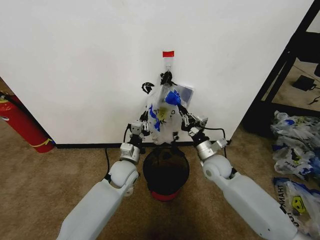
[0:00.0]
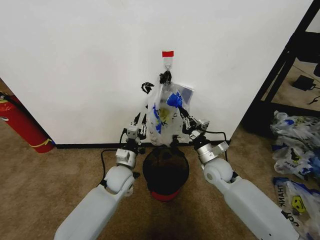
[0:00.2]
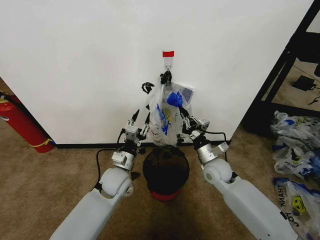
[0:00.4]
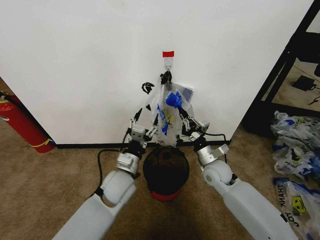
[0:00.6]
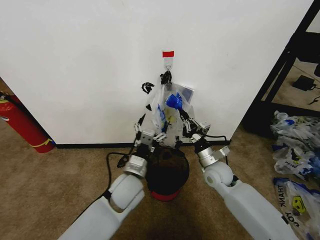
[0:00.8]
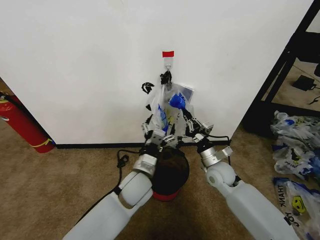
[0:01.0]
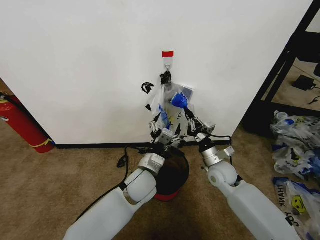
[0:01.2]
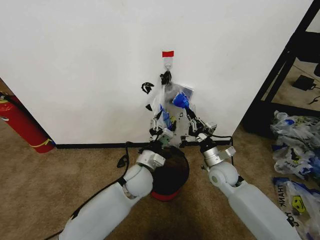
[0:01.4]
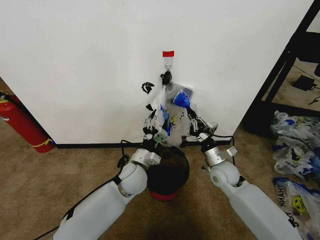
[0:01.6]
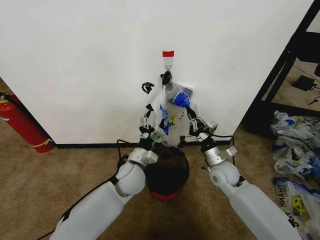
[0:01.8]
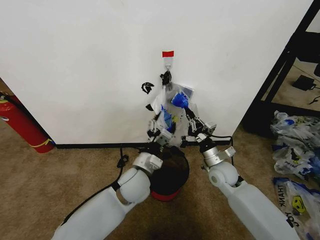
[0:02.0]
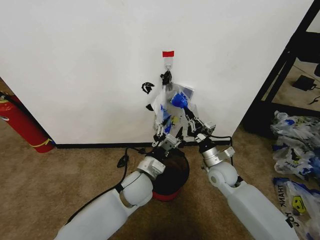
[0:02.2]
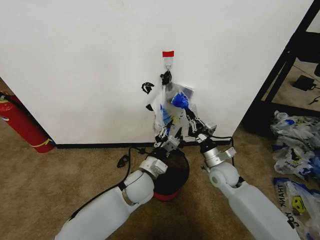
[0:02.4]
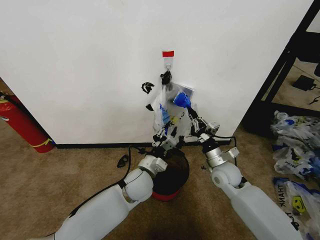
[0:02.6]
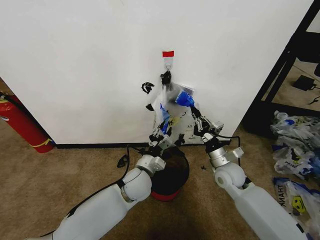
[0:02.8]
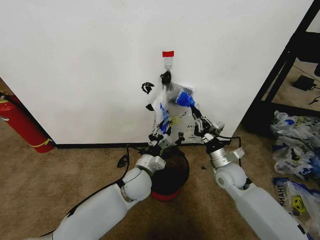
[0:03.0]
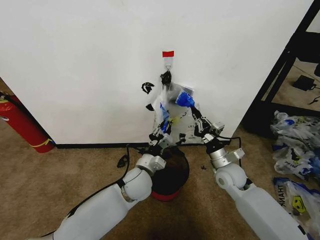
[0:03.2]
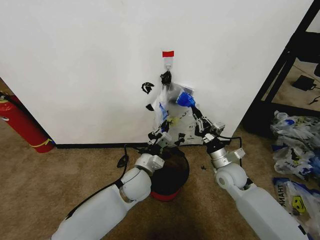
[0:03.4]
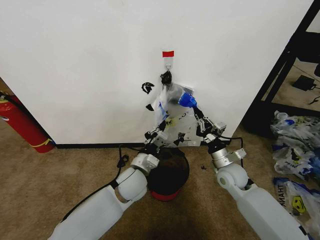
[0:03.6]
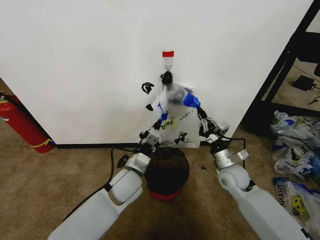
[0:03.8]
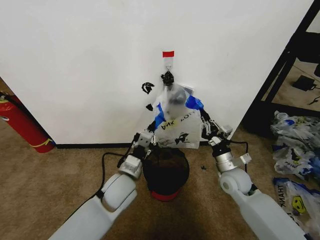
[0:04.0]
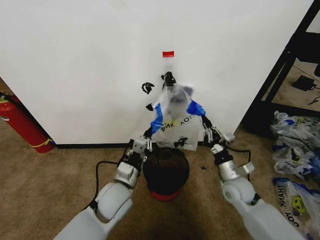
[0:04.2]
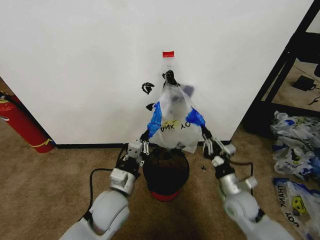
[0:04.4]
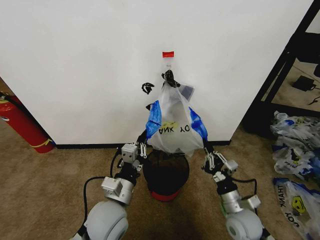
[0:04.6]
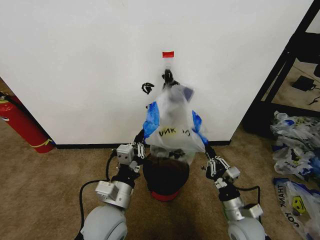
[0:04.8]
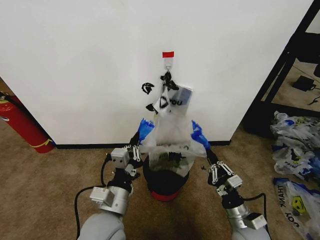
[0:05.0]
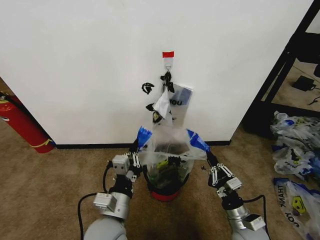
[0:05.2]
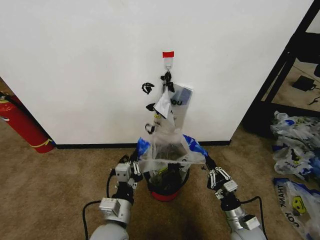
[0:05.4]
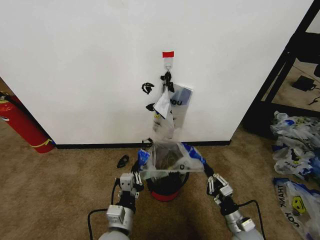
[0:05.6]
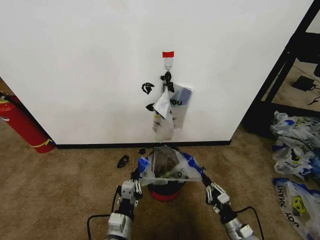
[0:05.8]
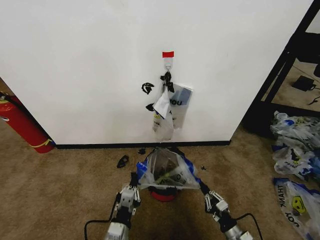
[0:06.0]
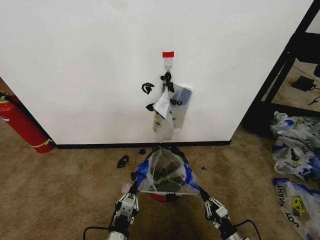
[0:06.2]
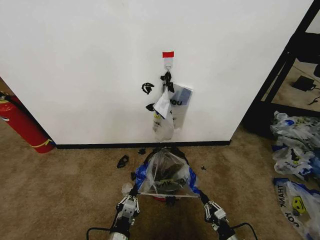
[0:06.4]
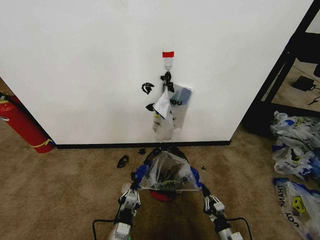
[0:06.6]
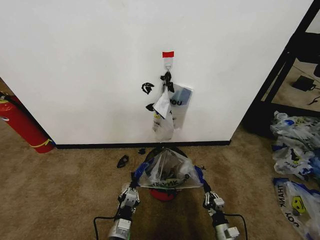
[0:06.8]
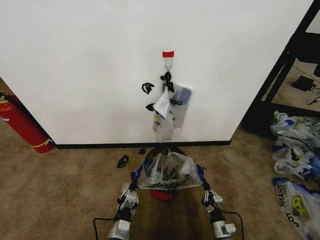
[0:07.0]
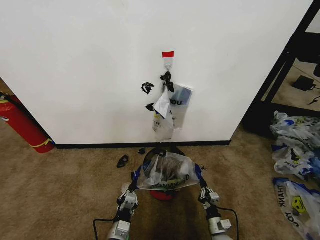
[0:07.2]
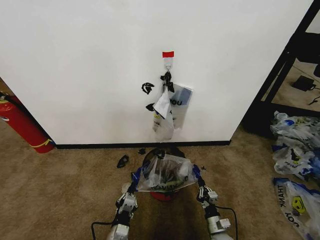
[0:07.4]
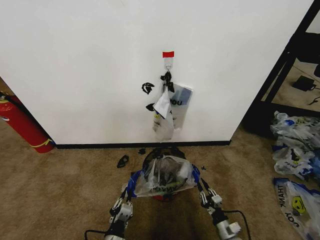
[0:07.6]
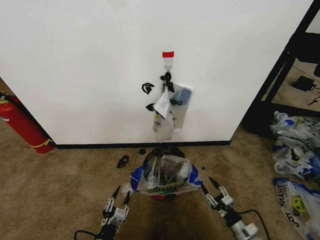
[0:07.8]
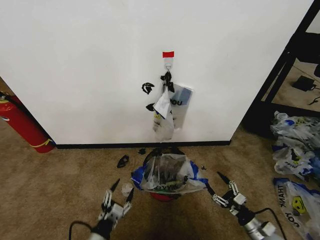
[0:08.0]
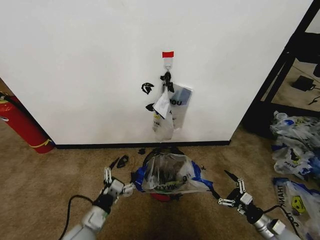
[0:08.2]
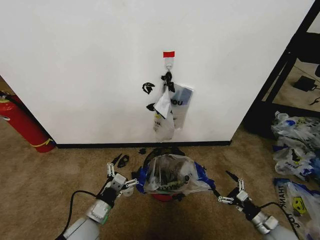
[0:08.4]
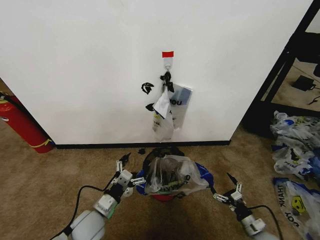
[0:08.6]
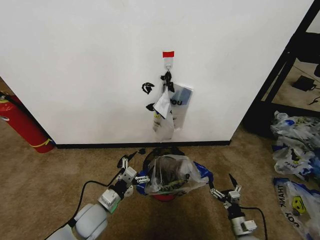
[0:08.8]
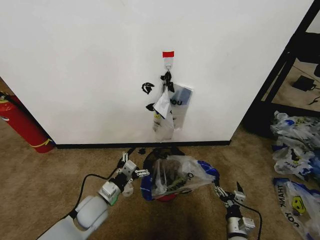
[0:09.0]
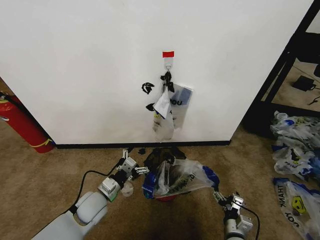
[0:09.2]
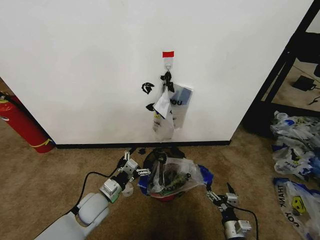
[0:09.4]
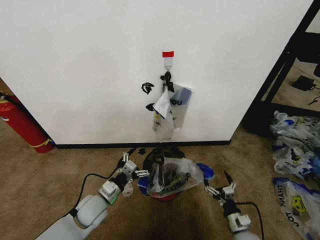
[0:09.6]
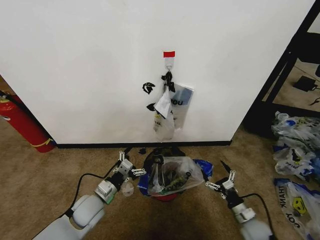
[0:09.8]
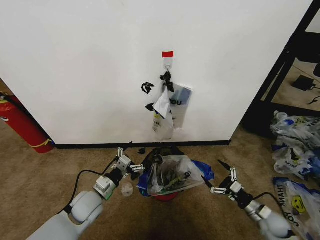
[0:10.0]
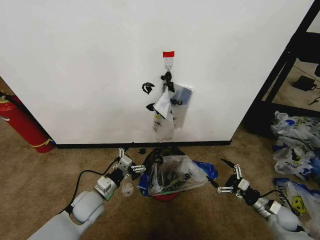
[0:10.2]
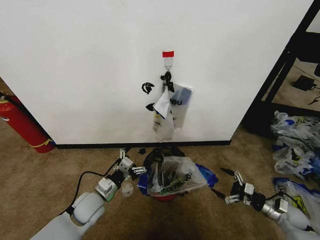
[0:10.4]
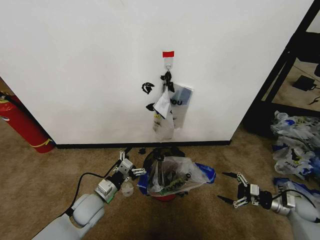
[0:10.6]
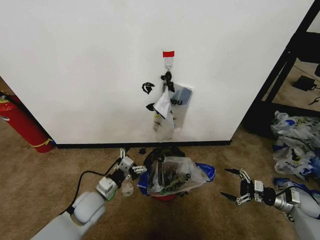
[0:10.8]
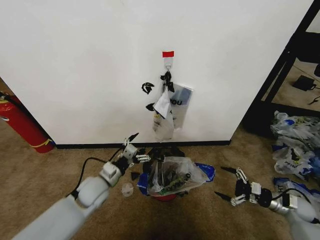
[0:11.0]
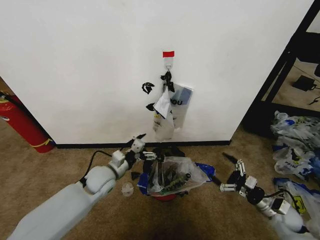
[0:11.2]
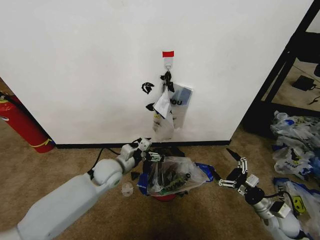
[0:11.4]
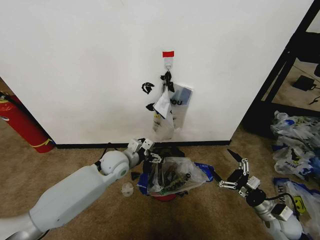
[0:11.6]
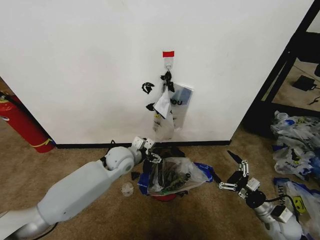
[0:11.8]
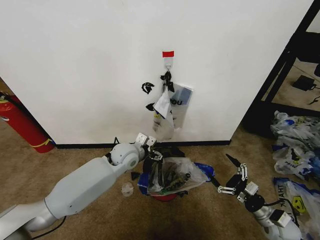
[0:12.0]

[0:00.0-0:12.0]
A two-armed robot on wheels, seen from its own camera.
Task of the whole recording: Pick up the garbage bag from the wall and place it over the trash bin.
0:00.0 to 0:01.6: The left gripper opens.
0:01.6 to 0:03.0: The grippers make only small movements.
0:03.0 to 0:04.4: The left gripper travels backward and to the left by about 10 cm, and closes its fingers. The right gripper moves backward, some 10 cm.
0:04.4 to 0:06.0: The left gripper is displaced backward and downward by some 15 cm, while the right gripper moves downward and backward, approximately 20 cm.
0:06.0 to 0:07.6: The grippers both shift downward by about 5 cm.
0:07.6 to 0:09.0: The left gripper shifts some 15 cm forward and upward, and opens. The right gripper heads upward, covering roughly 5 cm, reaches approximately 15 cm to the right, then returns, and opens its fingers.
0:09.0 to 0:10.4: The right gripper heads to the right and forward, covering roughly 20 cm.
0:10.4 to 0:12.0: The left gripper heads forward, to the right and upward, covering some 20 cm; the right gripper shifts about 10 cm to the left.

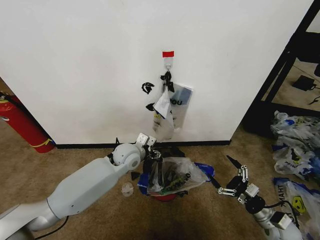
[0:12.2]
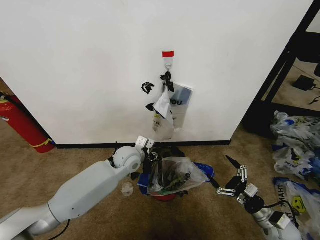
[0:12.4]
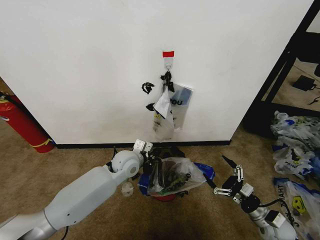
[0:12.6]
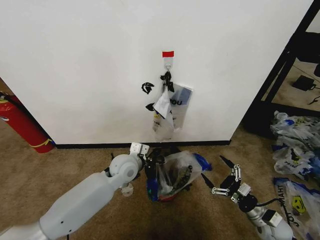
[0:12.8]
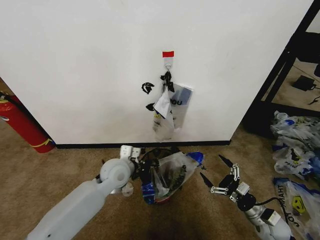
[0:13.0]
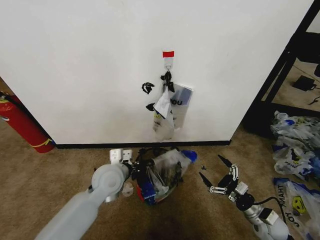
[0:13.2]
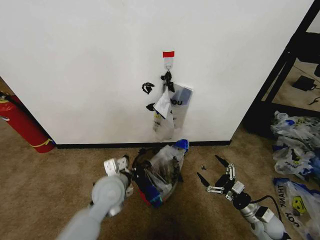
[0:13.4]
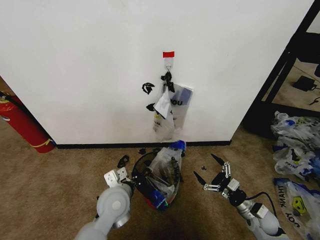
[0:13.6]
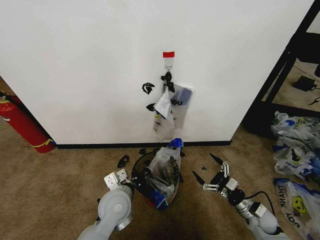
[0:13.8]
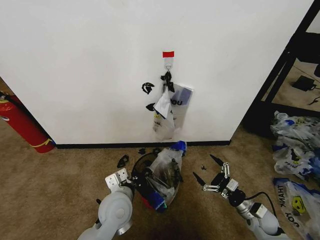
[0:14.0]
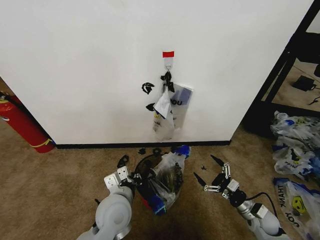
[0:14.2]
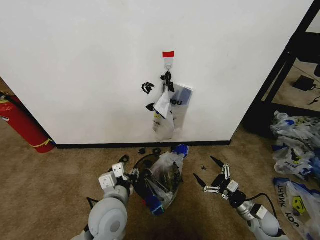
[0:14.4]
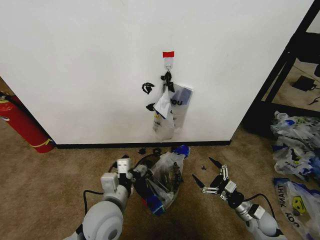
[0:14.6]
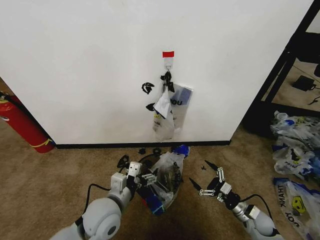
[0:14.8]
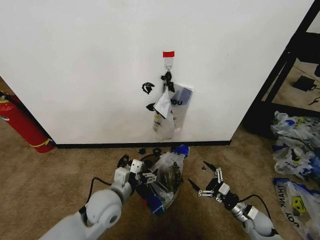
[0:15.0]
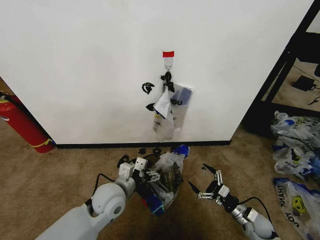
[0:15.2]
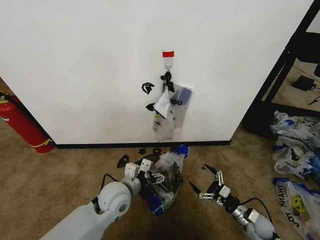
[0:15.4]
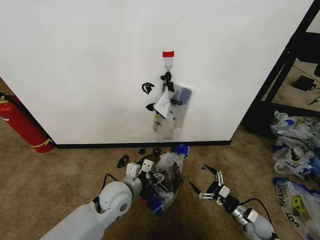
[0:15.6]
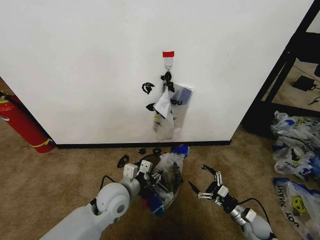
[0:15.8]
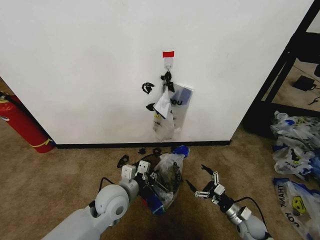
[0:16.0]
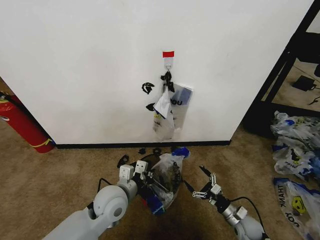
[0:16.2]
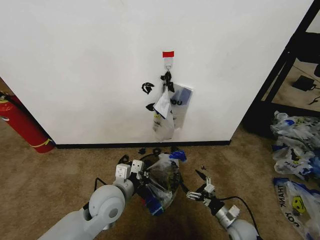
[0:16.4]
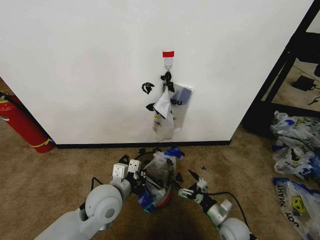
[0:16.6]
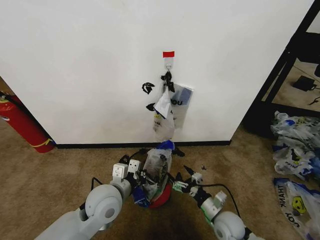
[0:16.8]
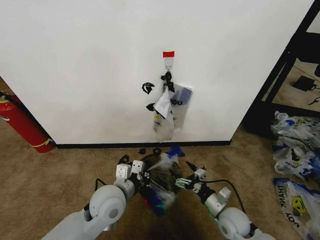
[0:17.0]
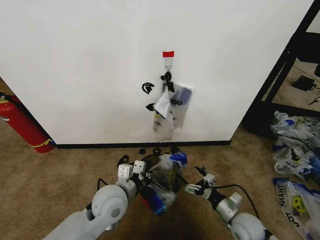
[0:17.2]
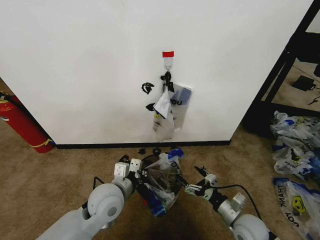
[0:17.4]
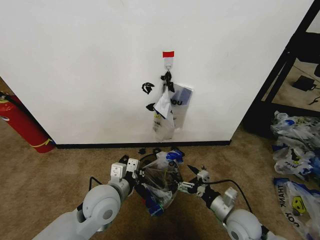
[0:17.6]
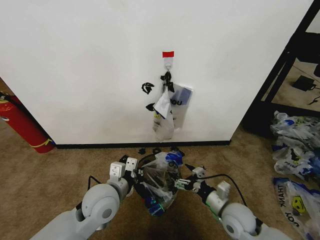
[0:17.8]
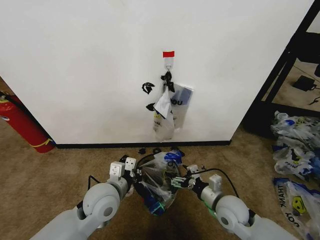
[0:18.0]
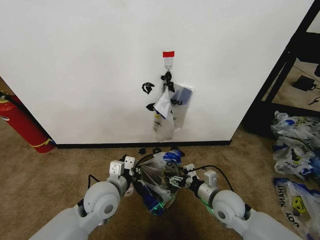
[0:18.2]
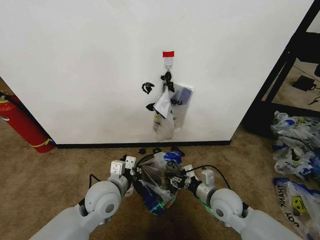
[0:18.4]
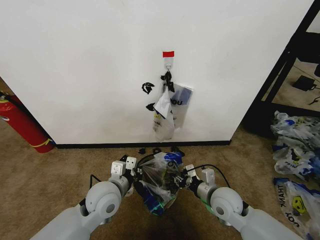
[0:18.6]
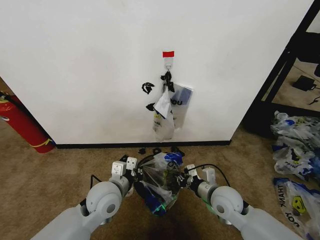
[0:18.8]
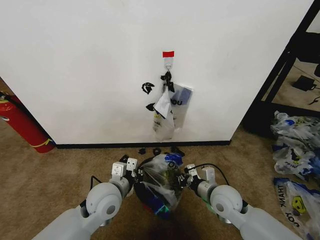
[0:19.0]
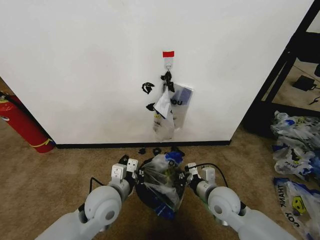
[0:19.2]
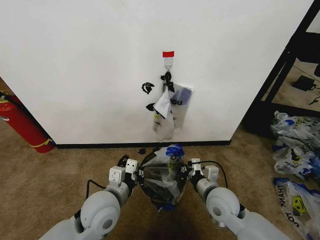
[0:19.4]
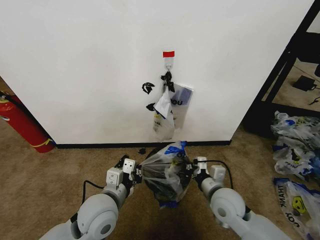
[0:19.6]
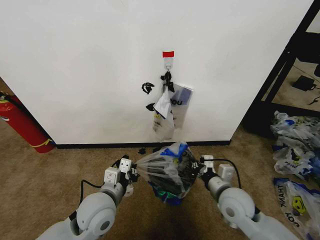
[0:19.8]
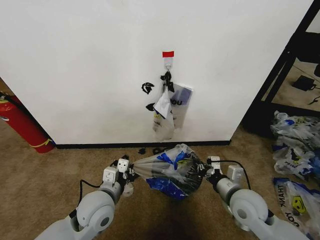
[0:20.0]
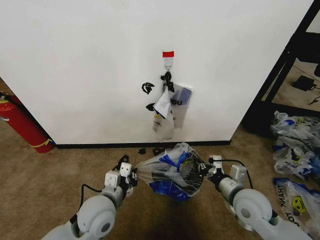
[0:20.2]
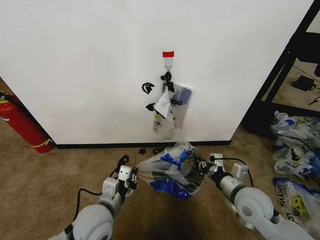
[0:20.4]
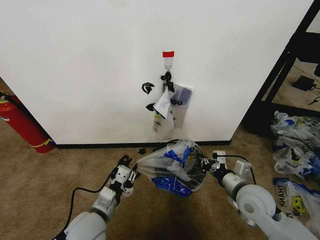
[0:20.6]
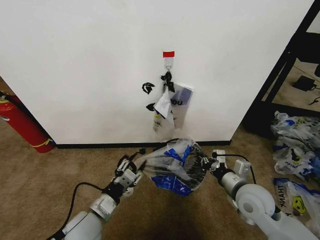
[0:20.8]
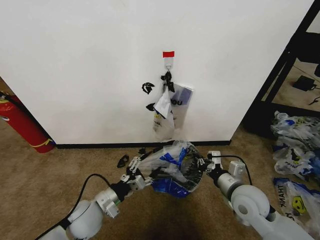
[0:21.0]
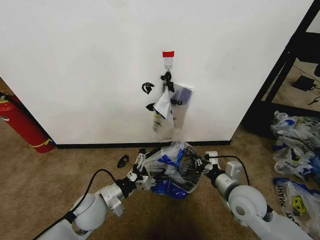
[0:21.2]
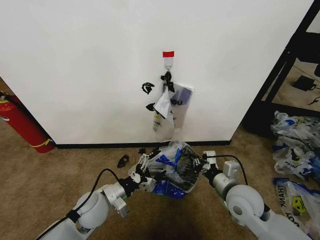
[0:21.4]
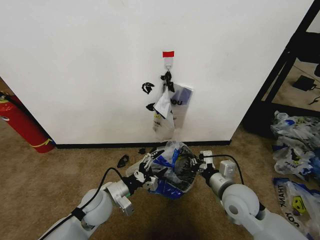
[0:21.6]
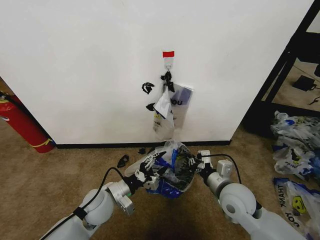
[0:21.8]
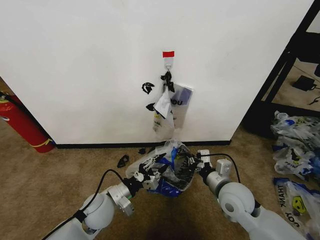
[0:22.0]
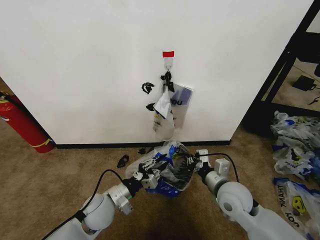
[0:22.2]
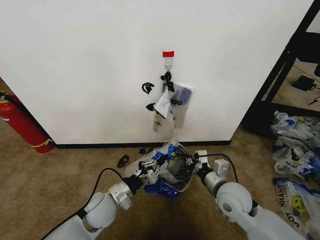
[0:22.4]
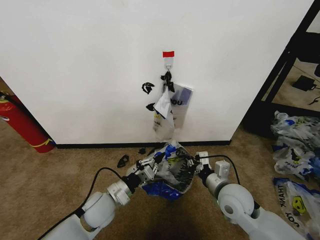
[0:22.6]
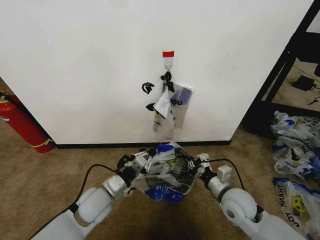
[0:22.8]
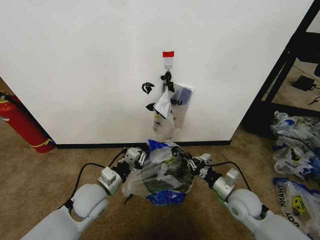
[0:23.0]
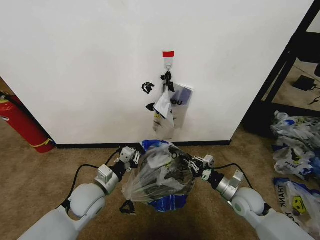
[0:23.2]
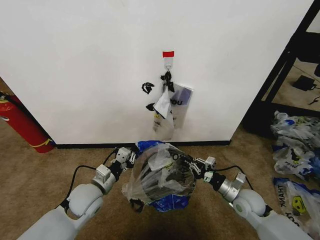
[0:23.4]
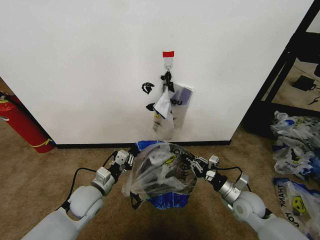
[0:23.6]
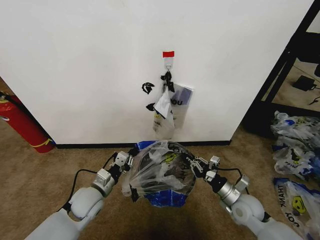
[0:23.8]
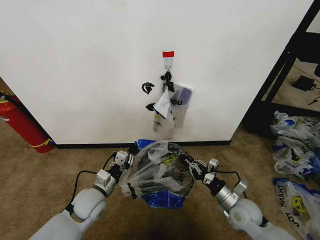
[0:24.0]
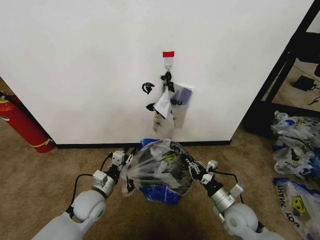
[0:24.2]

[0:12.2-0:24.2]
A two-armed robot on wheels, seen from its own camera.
Task of the whole recording: Pick up the garbage bag from the wall and place it over the trash bin.
0:12.2 to 0:13.8: The right gripper changes place by about 5 cm, while the left gripper moves backward, roughly 15 cm, and closes up.
0:13.8 to 0:15.2: The left gripper opens.
0:15.2 to 0:16.6: The left gripper closes up, while the right gripper goes approximately 10 cm to the left.
0:16.6 to 0:18.2: The right gripper goes approximately 15 cm upward and to the left.
0:18.2 to 0:19.8: The right gripper closes up.
0:19.8 to 0:21.2: The left gripper goes approximately 5 cm downward, and opens up.
0:21.2 to 0:22.6: The left gripper closes up.
0:22.6 to 0:24.2: The left gripper ends up some 5 cm from where it was. Meanwhile the right gripper travels downward by some 10 cm.
